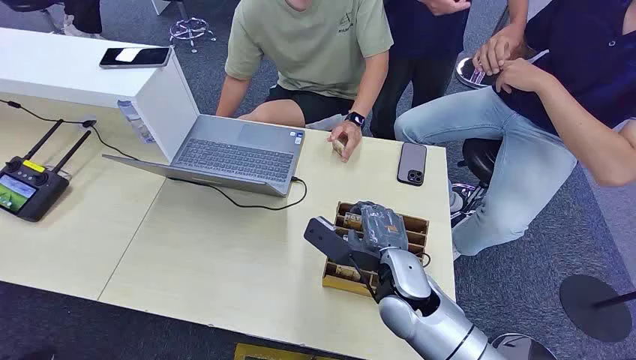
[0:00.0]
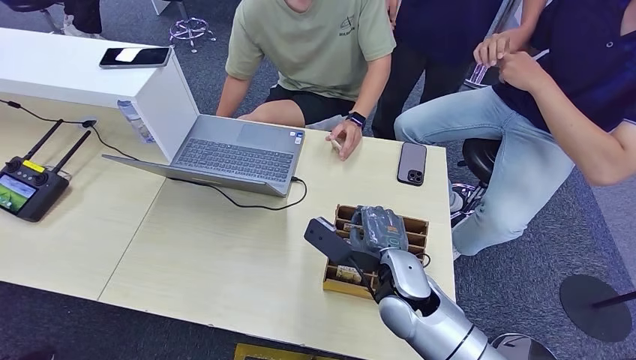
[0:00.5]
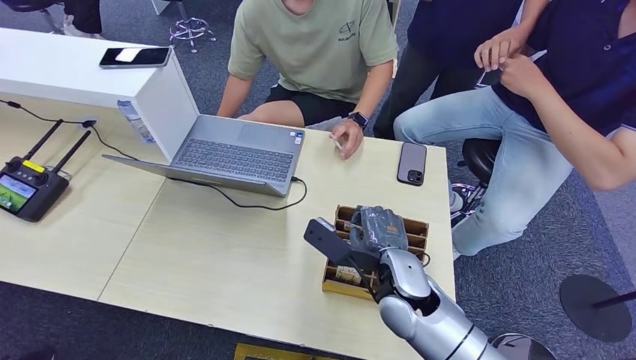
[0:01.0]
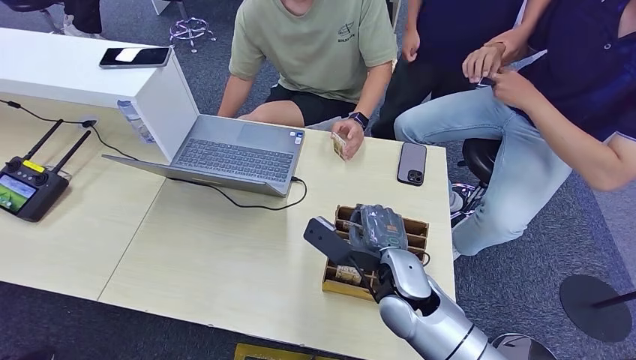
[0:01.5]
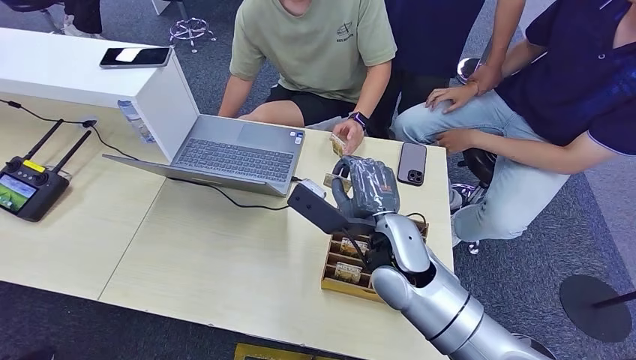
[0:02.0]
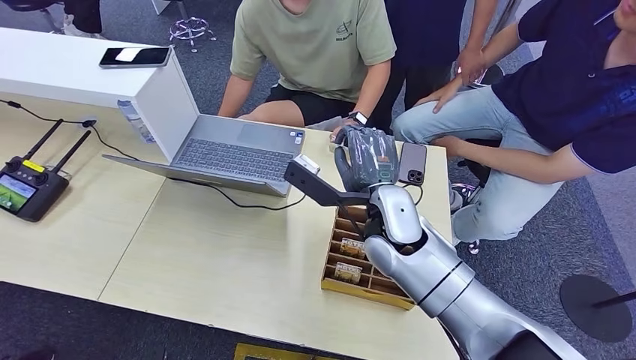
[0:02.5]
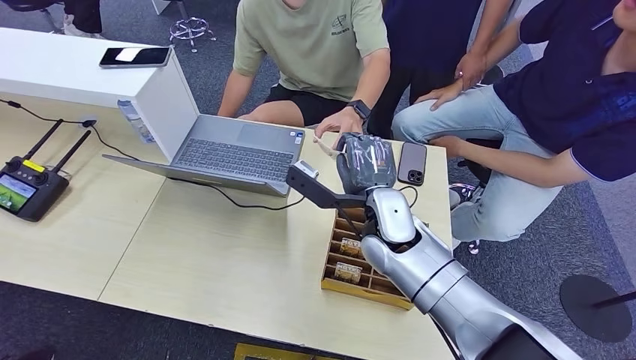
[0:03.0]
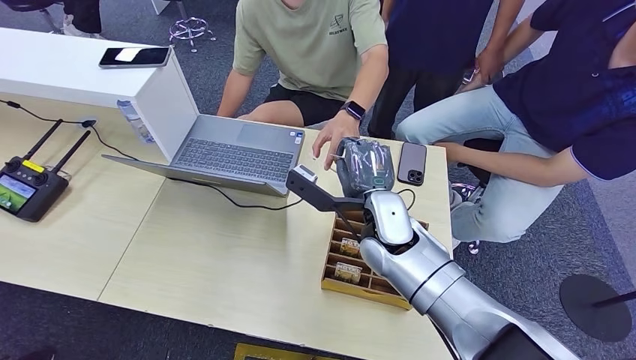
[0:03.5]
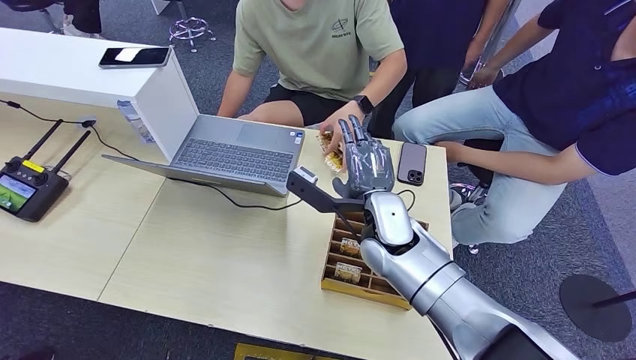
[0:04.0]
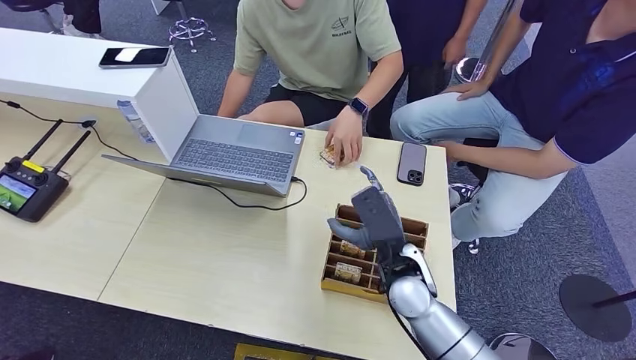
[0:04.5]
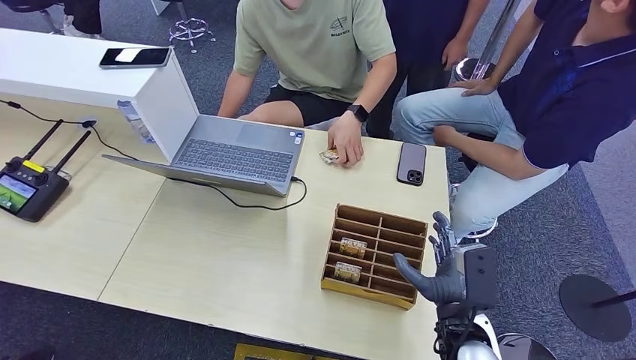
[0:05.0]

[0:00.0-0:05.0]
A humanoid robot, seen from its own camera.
Step, 0:00.0 to 0:02.0: Pick up the room card from the card holder.
Step, 0:02.5 to 0:05.0: Hand the room card to the target.
0:02.5 to 0:05.0: The right hand moves to the right, backward and downward, about 25 cm.
